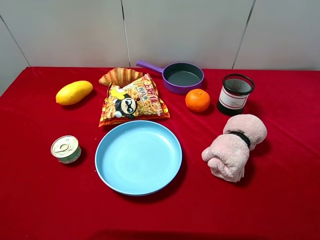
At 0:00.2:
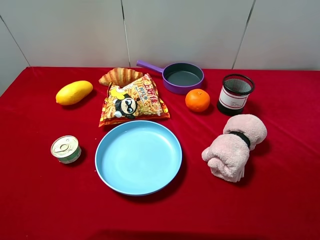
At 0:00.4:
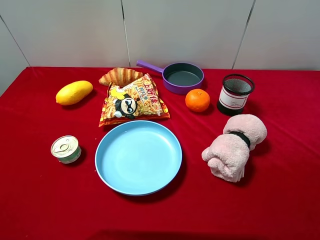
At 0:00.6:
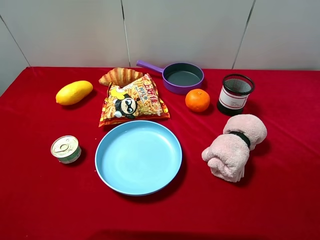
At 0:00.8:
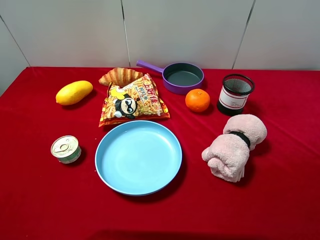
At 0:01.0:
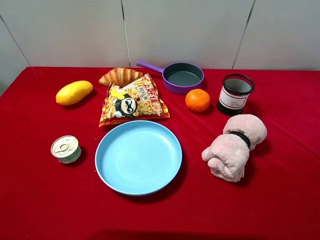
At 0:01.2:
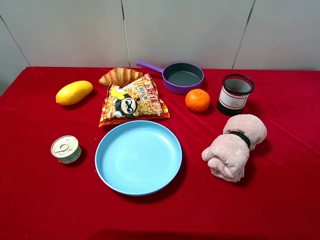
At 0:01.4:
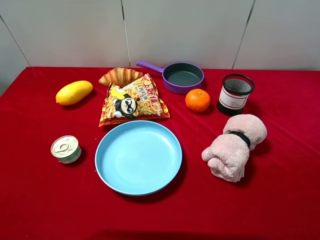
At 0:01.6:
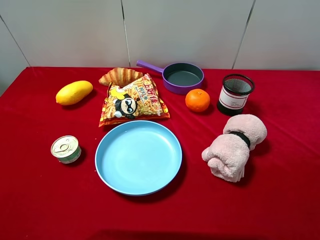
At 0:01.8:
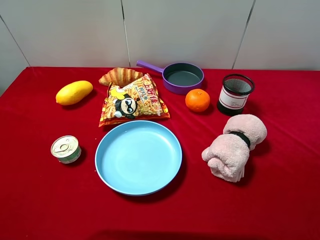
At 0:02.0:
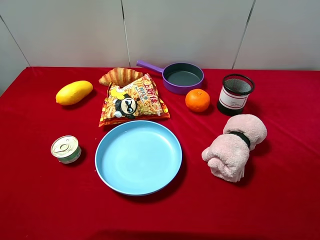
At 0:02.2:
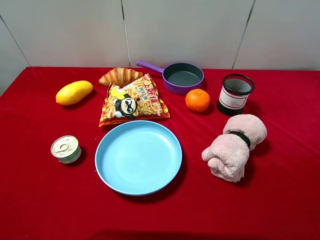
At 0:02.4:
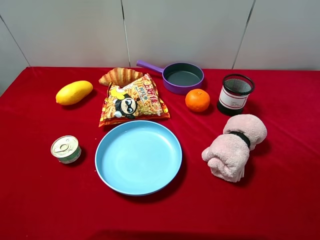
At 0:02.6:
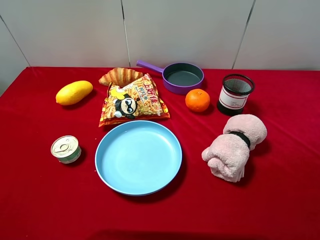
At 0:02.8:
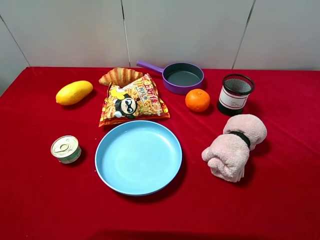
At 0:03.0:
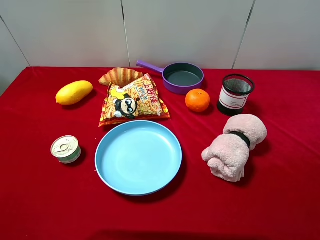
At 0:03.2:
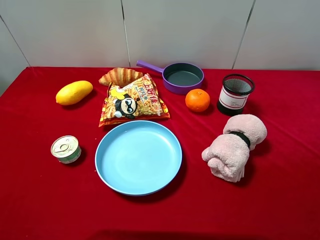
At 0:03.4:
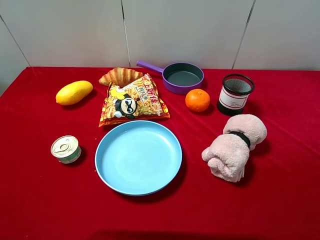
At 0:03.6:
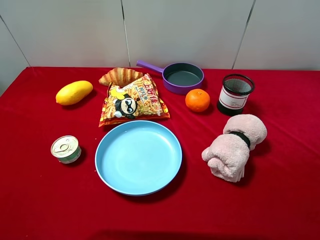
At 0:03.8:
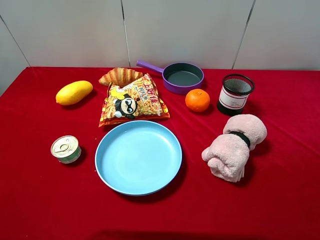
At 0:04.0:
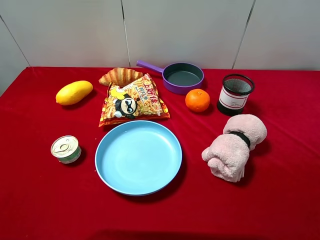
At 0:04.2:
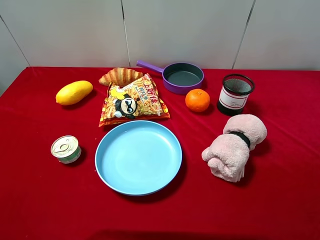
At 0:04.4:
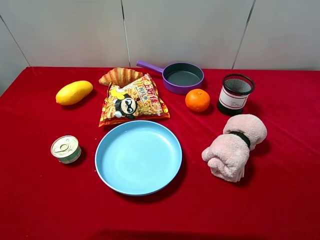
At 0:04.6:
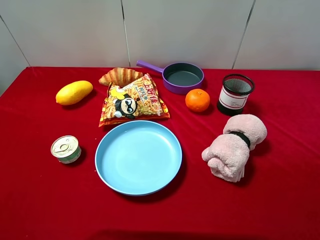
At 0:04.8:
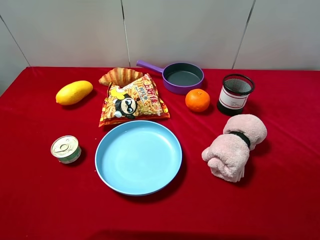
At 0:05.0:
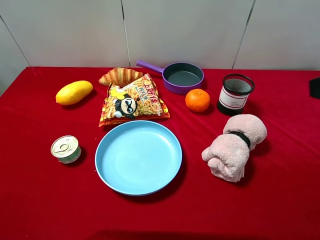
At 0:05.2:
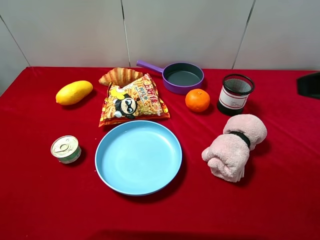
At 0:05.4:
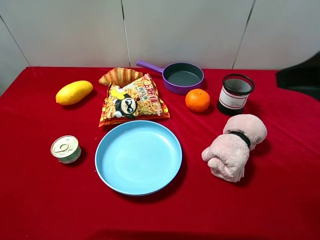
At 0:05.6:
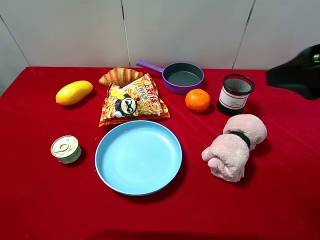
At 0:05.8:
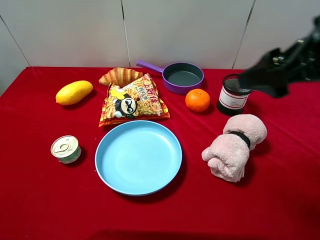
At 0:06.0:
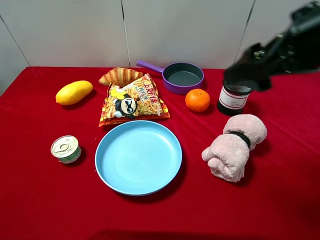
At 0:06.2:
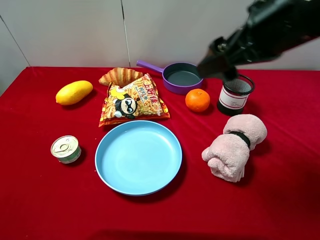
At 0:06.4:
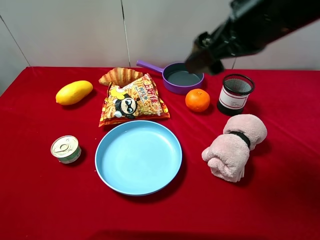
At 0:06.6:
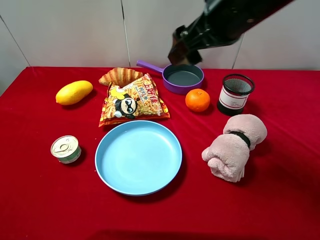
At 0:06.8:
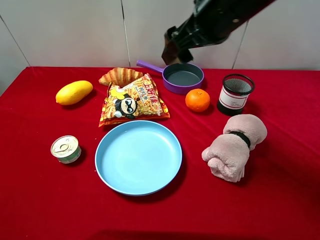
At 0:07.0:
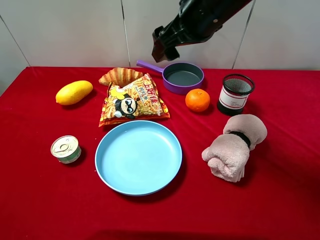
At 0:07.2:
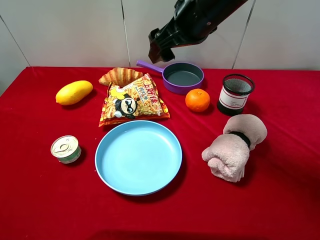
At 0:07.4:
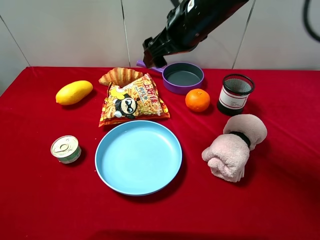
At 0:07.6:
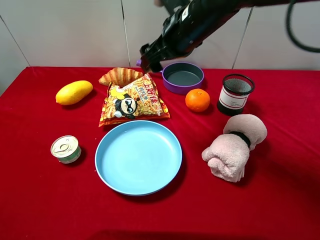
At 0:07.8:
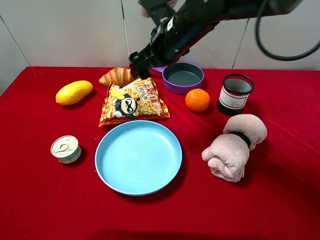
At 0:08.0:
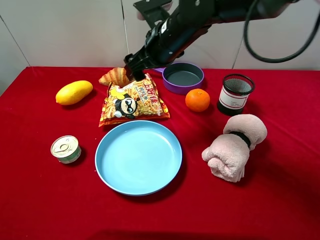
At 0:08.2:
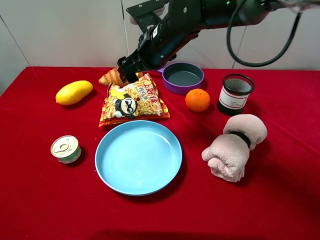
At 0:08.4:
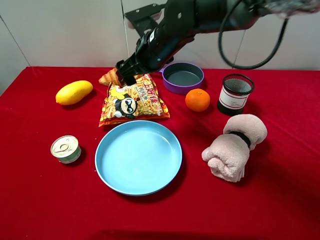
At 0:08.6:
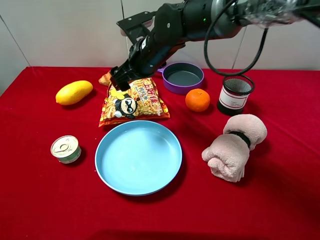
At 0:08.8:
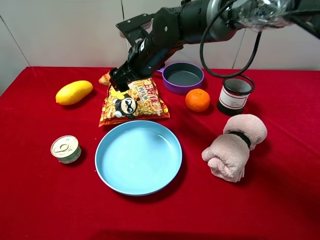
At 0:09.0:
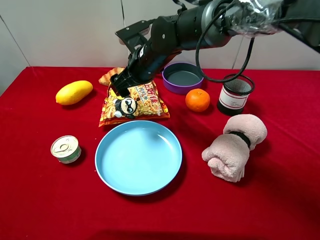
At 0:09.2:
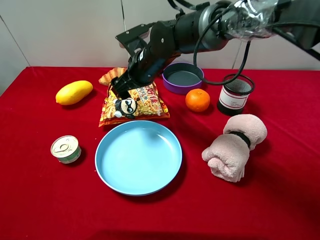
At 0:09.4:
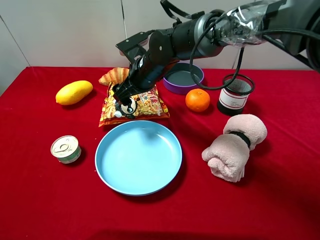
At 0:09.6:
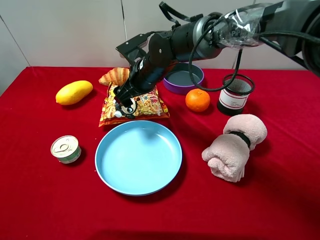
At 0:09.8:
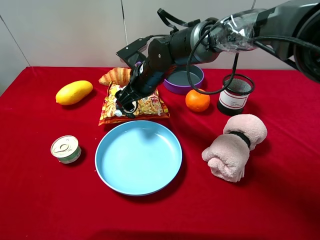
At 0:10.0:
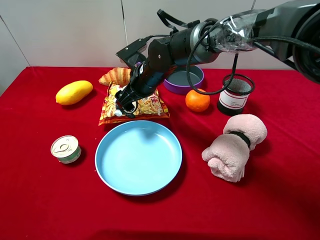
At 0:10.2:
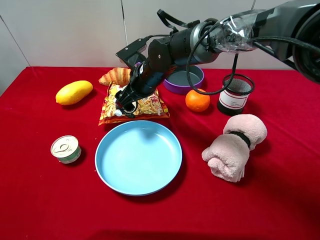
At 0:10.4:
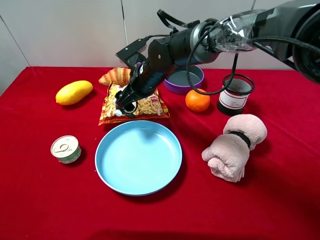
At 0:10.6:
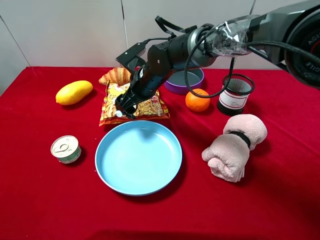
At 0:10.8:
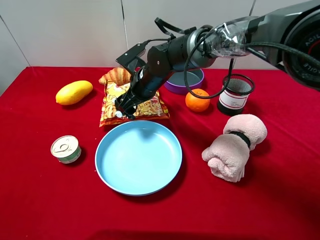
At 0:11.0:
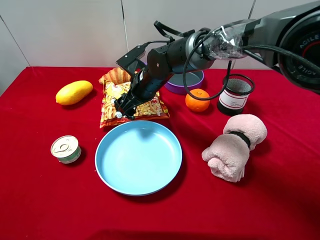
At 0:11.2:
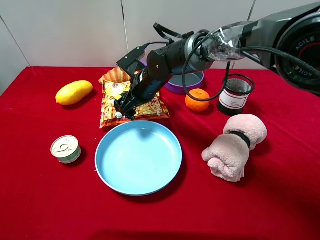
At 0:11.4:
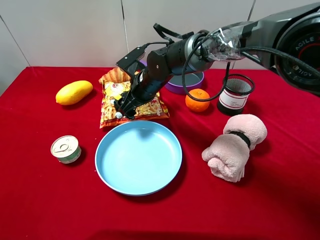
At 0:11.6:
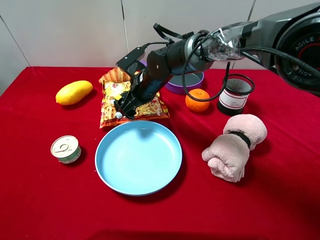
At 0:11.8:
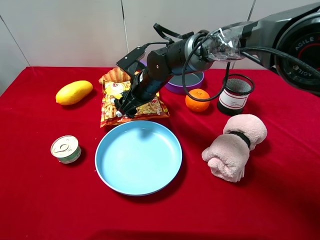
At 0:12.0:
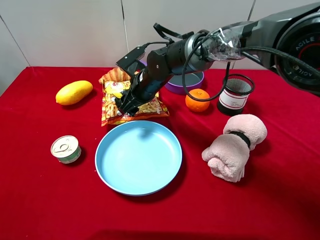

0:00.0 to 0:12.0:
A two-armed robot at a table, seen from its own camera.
Task of the whole recording: pick up an item with a gripper and place it in a random container on the desktop.
0:00.0 to 0:03.0: Neither gripper changes place.
0:04.4 to 0:06.0: The right gripper is displaced forward and to the left by some 15 cm.
0:06.0 to 0:07.6: The right gripper moves to the left, forward and downward, roughly 20 cm.
0:07.6 to 0:09.0: The right gripper goes roughly 10 cm downward and to the left.
0:09.0 to 0:10.4: The grippers stay close to where they were, moving slightly.
0:10.4 to 0:12.0: The grippers stay close to where they were, moving slightly.

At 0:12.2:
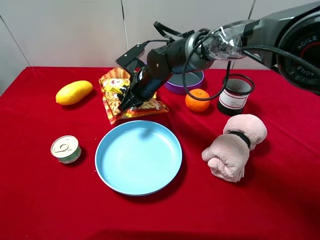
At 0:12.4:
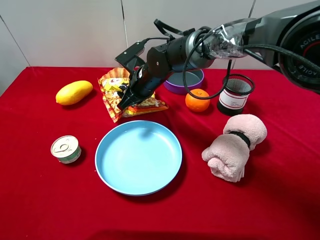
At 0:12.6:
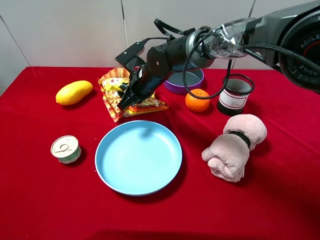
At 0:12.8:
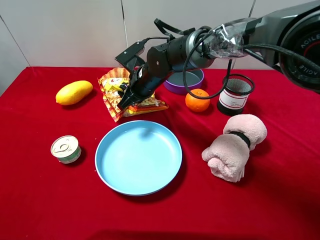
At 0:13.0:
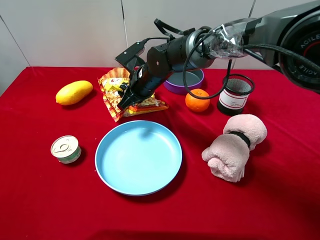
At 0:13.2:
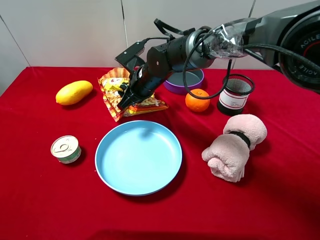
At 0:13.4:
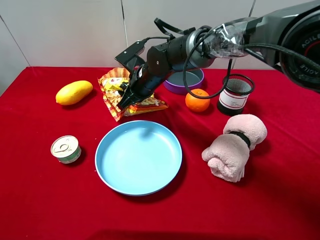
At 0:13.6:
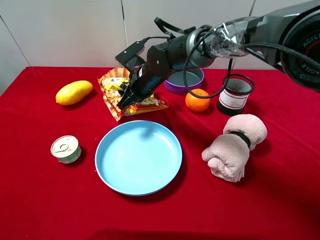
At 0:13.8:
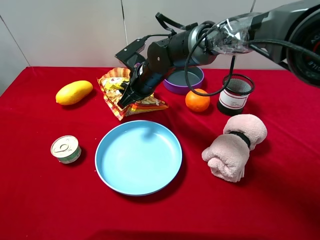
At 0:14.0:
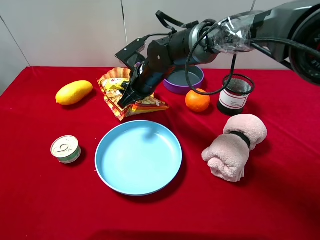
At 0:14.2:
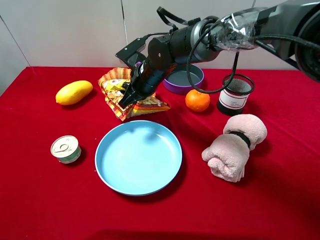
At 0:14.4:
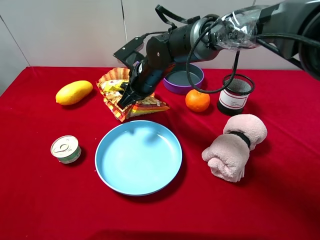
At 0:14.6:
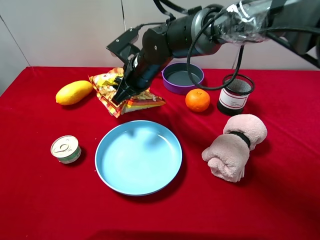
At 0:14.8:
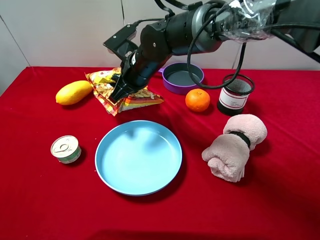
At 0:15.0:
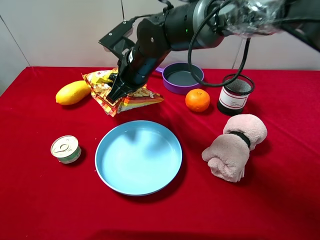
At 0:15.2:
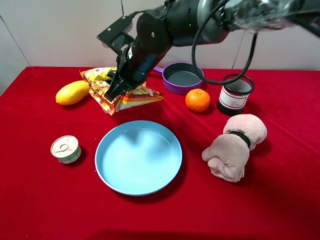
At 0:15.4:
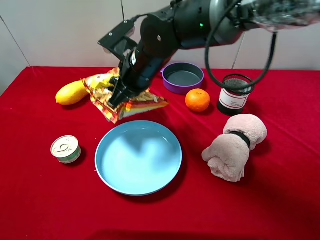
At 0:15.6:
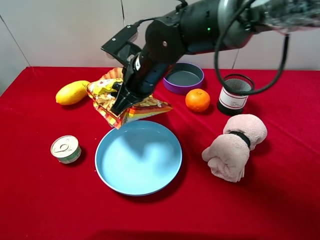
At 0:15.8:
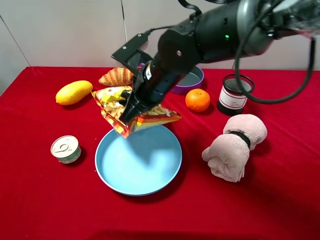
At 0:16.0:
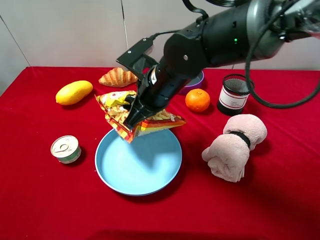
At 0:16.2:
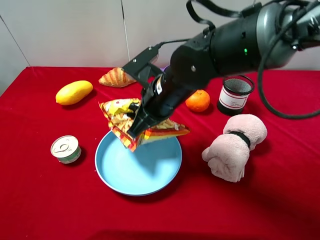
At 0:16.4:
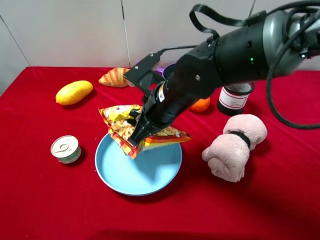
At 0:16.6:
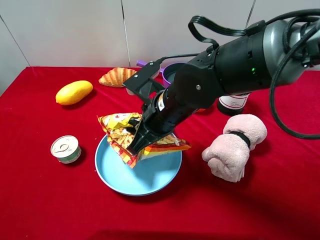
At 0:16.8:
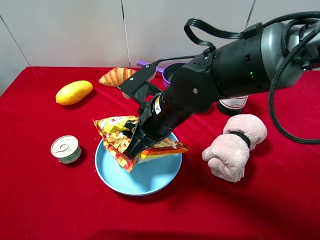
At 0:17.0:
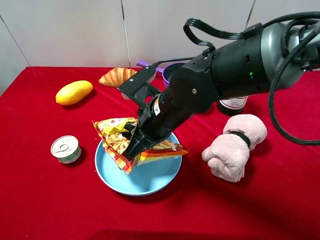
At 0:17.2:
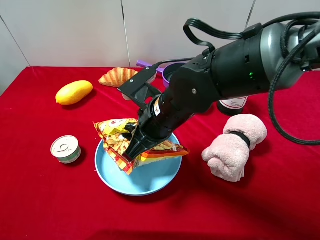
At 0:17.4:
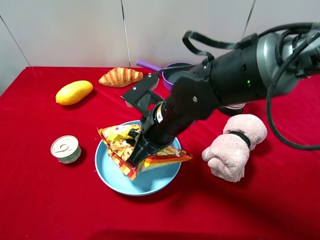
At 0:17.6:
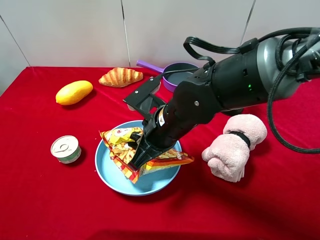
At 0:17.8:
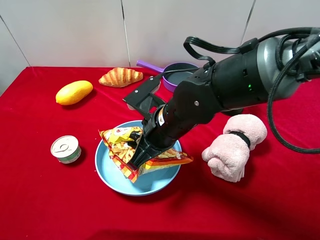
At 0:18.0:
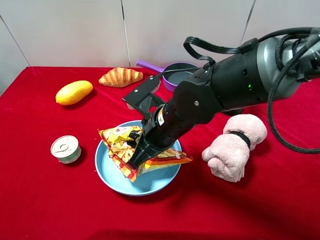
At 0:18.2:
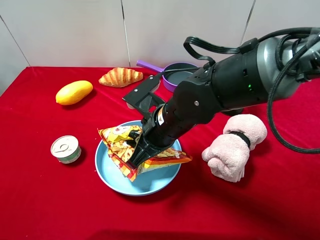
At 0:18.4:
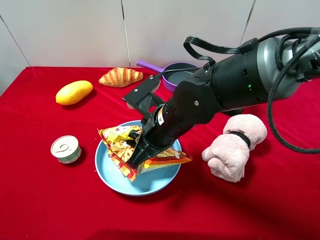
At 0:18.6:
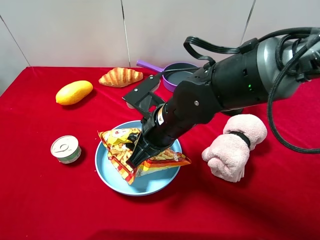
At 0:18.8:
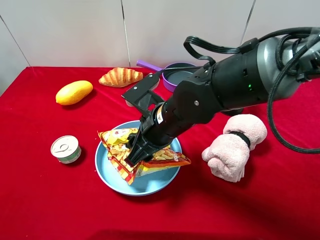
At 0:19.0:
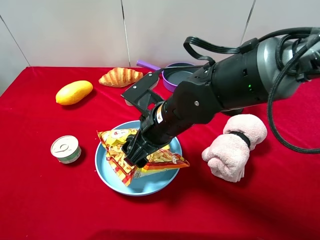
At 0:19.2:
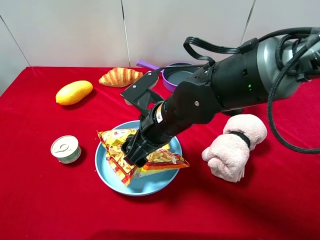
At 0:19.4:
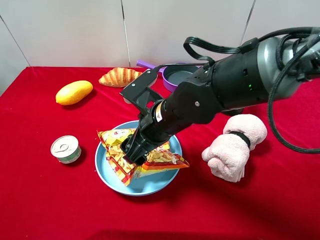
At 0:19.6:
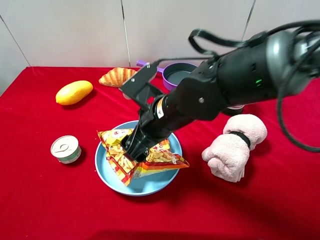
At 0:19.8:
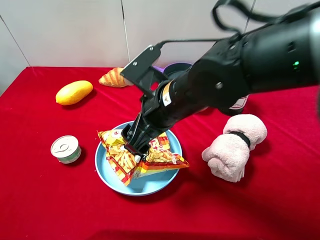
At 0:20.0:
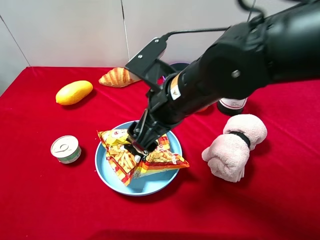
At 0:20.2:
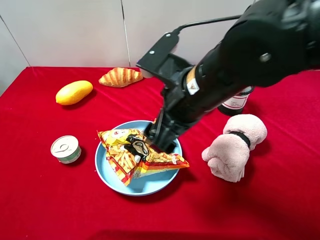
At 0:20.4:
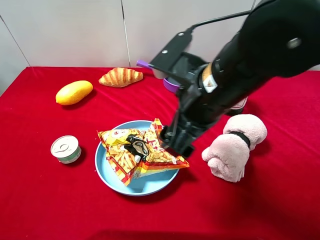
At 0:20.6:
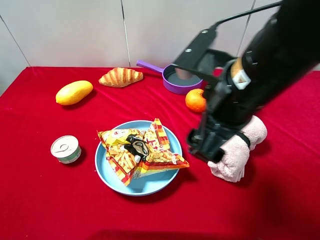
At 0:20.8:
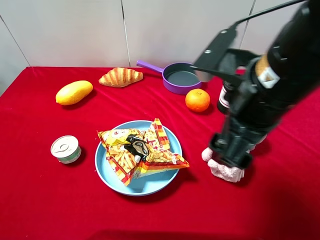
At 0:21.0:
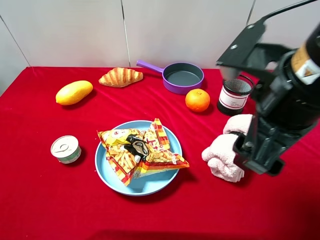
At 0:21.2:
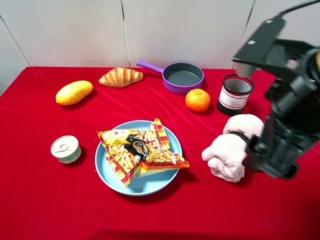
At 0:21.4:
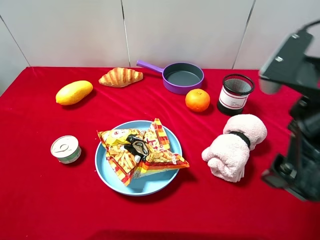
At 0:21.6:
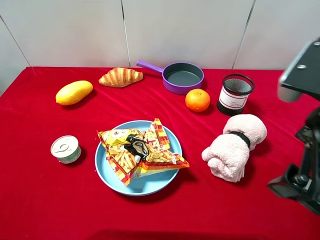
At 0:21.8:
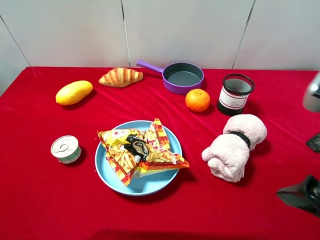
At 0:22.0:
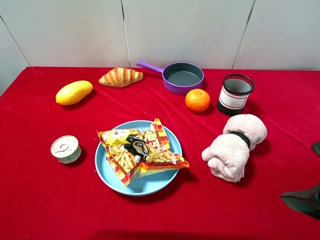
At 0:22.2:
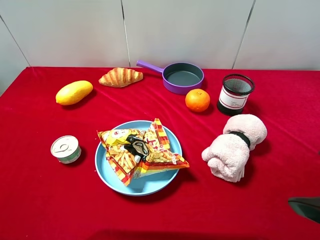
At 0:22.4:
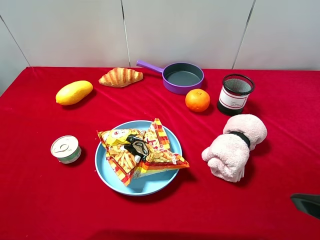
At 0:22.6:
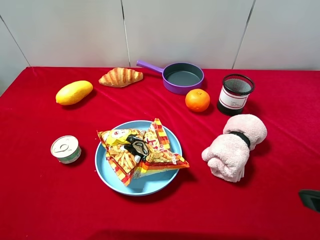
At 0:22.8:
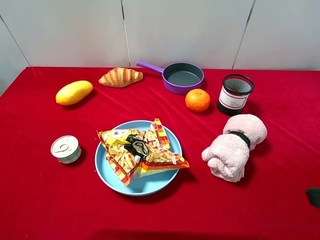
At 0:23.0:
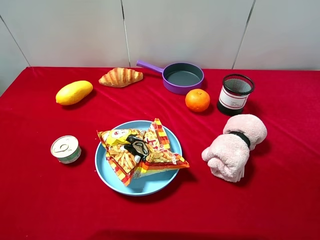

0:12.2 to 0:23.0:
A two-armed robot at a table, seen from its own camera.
Task of the whole recording: pick up an item with a gripper and place it in a random container on the desktop.
0:12.2 to 0:13.8: The right gripper closes its fingers.
0:13.8 to 0:15.2: The right gripper shifts some 5 cm upward.
0:15.2 to 0:16.8: The right gripper shifts roughly 10 cm backward and to the right.
0:16.8 to 0:18.4: There are only small adjustments of the grippers.
0:18.4 to 0:20.0: The right gripper is displaced upward by roughly 5 cm, and opens.
0:20.0 to 0:21.4: The right gripper goes about 20 cm to the right, backward and upward.
0:21.4 to 0:23.0: The right gripper heads to the right and backward, covering roughly 15 cm.
